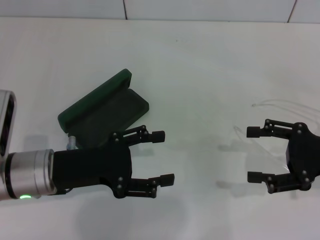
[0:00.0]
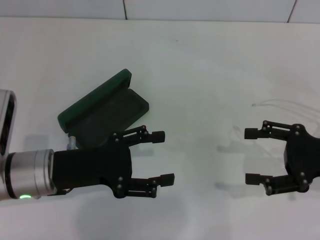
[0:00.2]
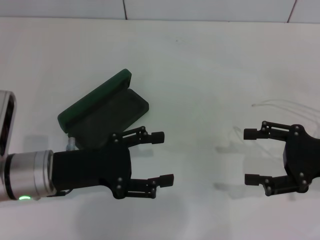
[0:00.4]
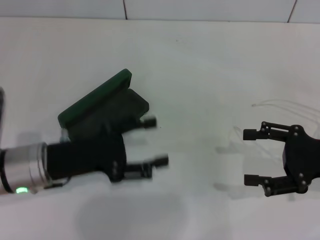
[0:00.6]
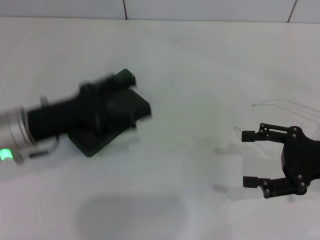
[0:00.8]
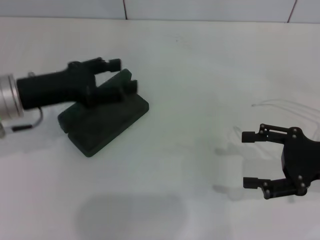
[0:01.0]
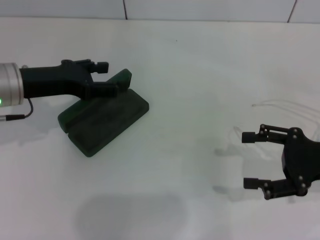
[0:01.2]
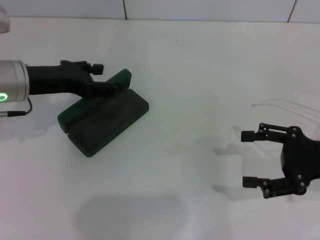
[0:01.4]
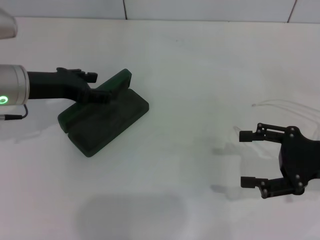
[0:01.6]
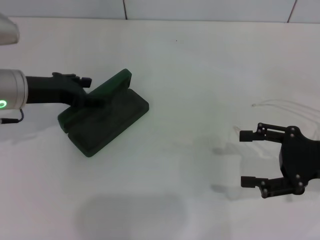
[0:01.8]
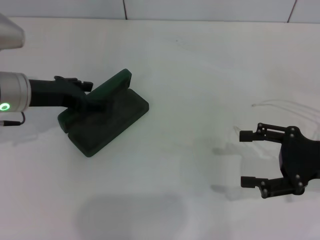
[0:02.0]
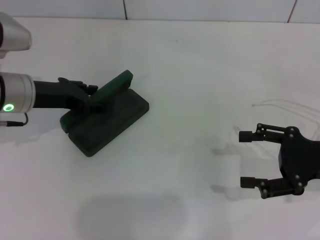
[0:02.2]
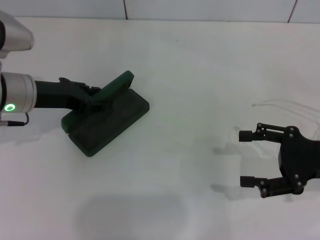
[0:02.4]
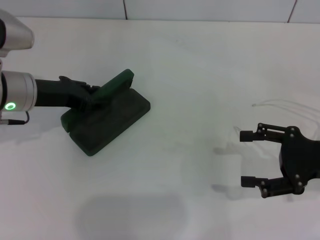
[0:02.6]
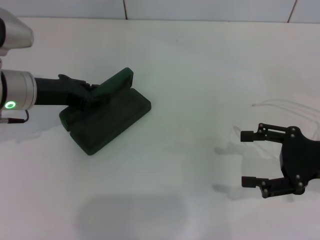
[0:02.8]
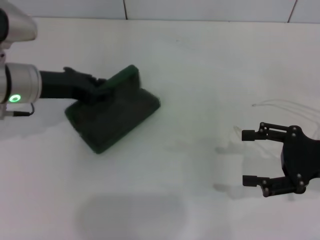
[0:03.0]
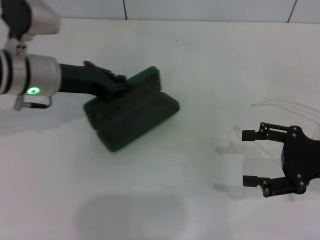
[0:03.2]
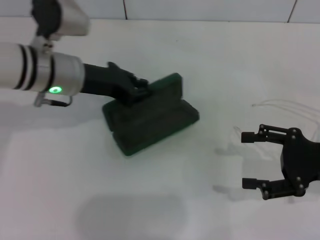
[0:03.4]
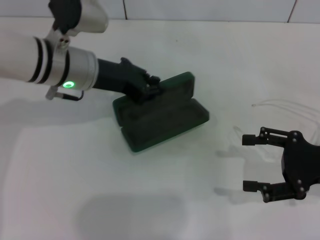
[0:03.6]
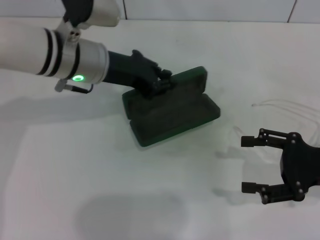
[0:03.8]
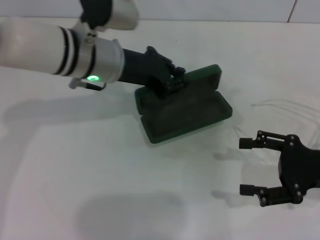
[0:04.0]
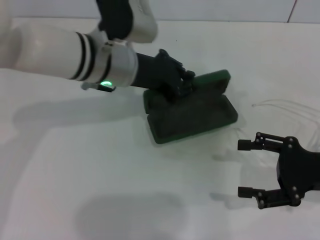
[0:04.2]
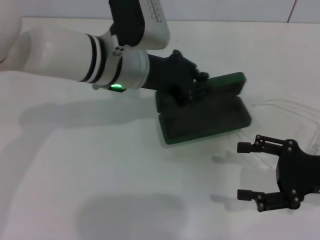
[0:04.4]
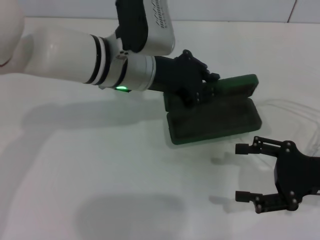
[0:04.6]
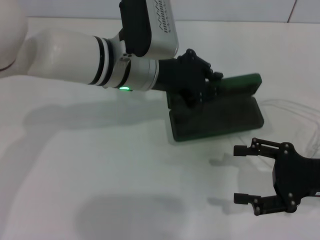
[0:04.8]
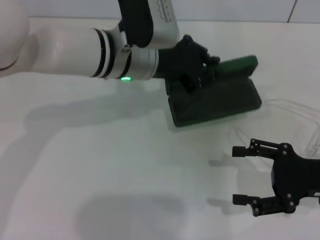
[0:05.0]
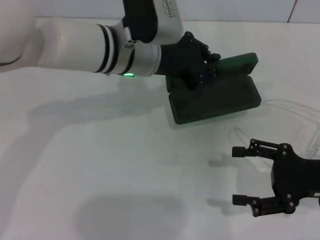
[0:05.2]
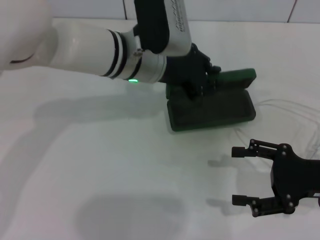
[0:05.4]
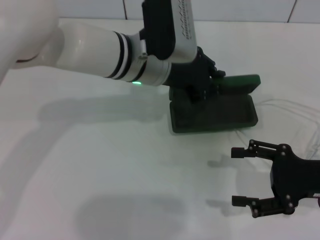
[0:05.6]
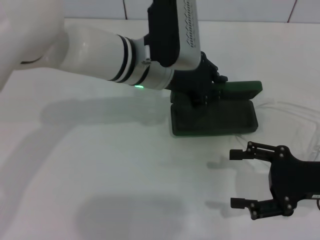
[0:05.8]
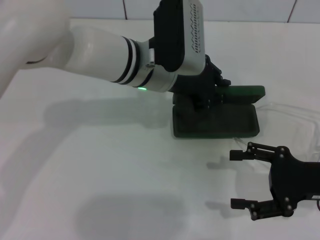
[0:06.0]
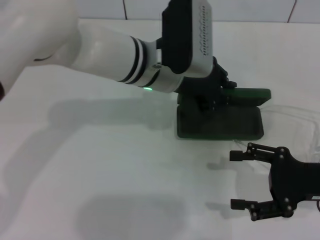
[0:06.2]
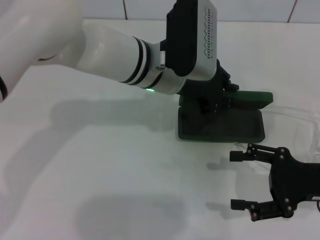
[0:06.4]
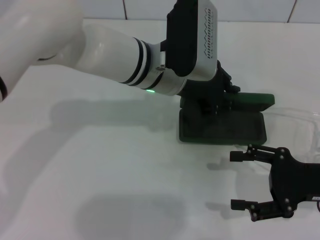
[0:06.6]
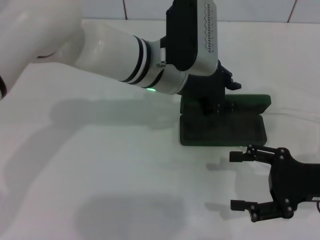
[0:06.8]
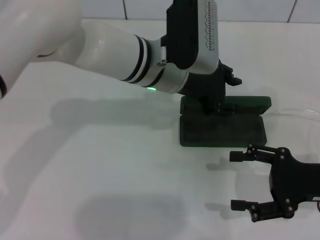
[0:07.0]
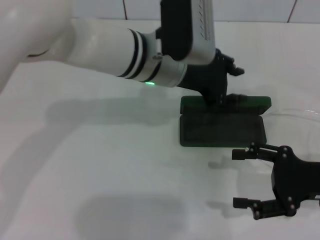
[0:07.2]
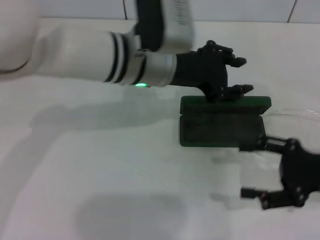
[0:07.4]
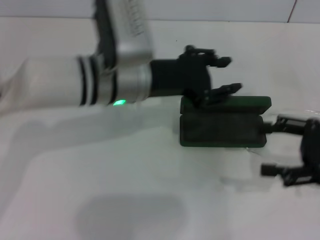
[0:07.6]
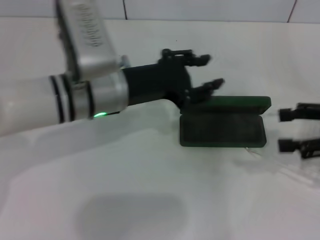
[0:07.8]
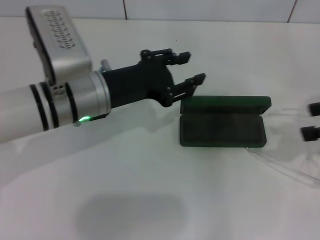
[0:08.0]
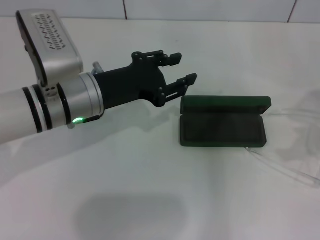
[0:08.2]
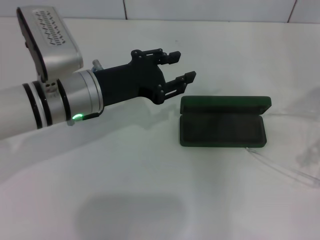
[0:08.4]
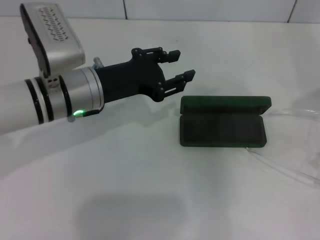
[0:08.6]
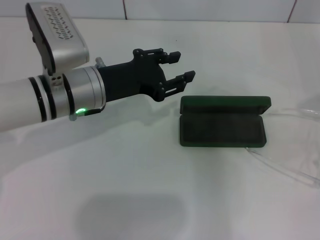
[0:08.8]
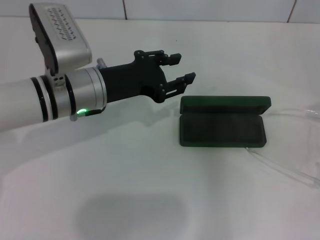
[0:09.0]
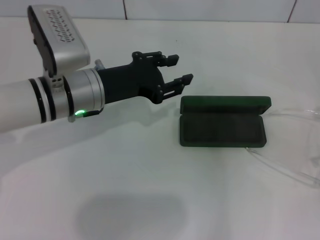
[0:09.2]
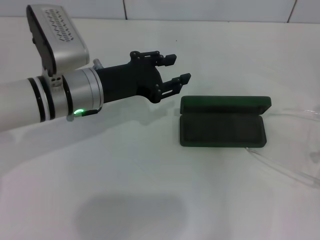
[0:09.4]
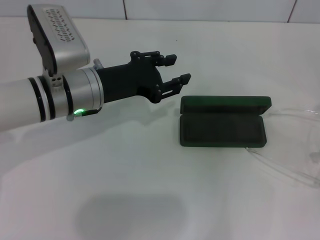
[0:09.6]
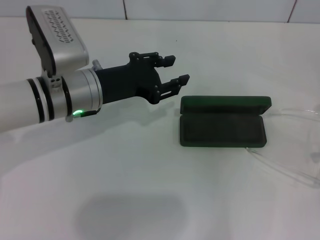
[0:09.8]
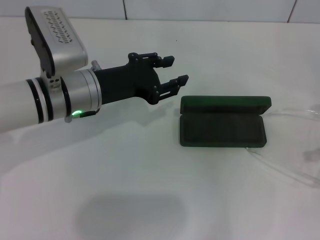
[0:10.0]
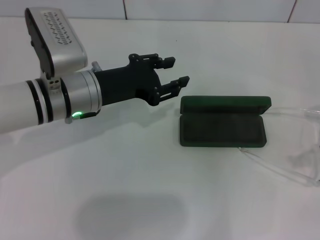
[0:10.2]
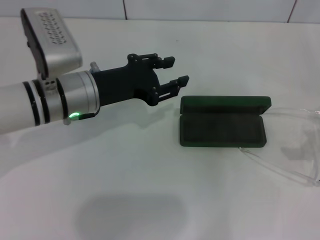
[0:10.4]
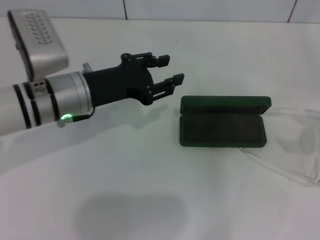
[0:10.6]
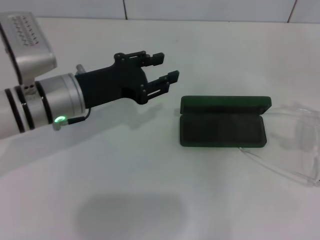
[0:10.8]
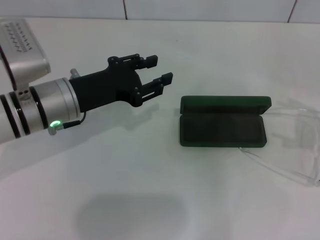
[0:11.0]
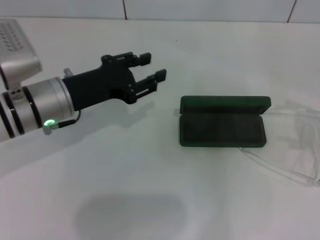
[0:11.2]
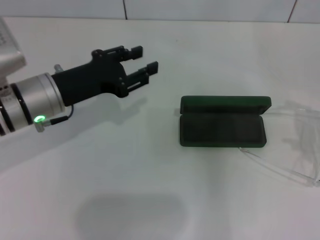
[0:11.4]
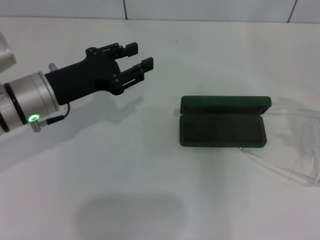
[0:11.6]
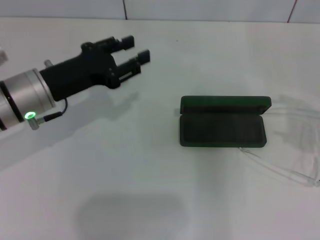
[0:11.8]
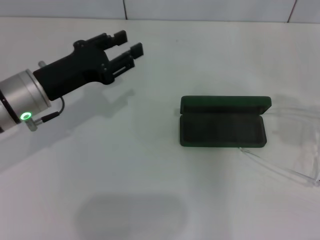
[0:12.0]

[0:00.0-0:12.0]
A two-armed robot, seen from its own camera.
Step, 0:00.0 to 0:02.6: Grab the glasses case with your left hand.
Step, 0:02.8 to 0:06.8: Place the glasses case in the center of the table with your left hand.
0:00.0 to 0:01.6: The left gripper travels forward and upward by approximately 10 cm.
0:01.6 to 0:03.0: The left gripper closes its fingers.
0:03.0 to 0:04.4: The left gripper moves to the right, approximately 15 cm.
0:06.0 to 0:07.6: The right gripper ends up about 5 cm from where it was, while the left gripper shifts by some 5 cm.
0:07.6 to 0:09.0: The right gripper shifts approximately 10 cm upward. Meanwhile the left gripper goes approximately 5 cm to the left.
0:10.4 to 0:12.0: The right gripper ends up roughly 10 cm from where it was, while the left gripper travels to the left by about 5 cm.

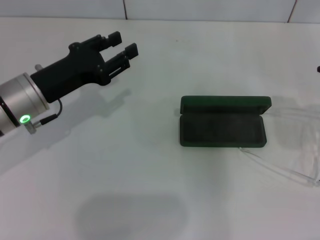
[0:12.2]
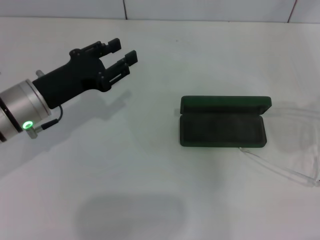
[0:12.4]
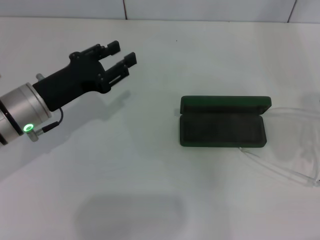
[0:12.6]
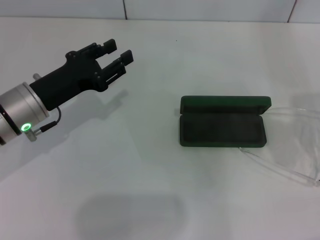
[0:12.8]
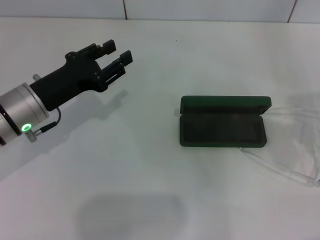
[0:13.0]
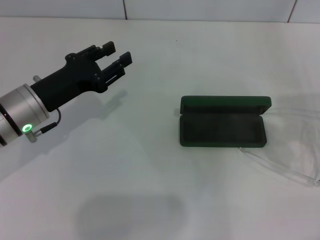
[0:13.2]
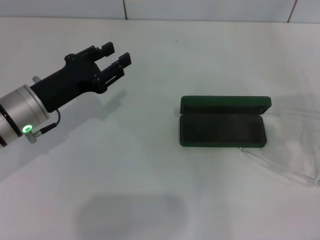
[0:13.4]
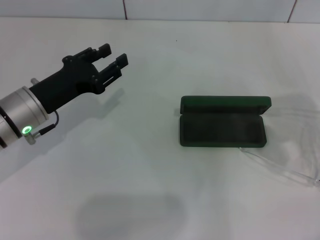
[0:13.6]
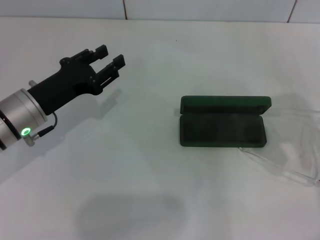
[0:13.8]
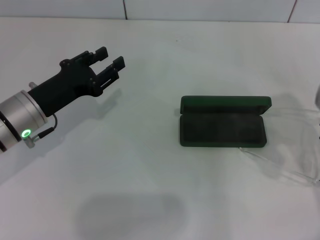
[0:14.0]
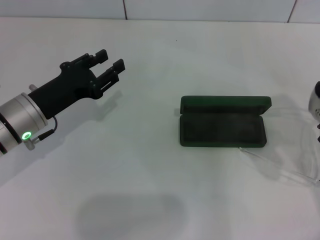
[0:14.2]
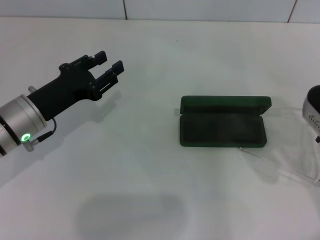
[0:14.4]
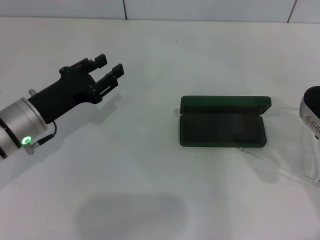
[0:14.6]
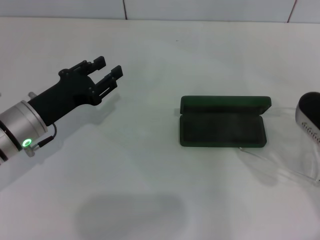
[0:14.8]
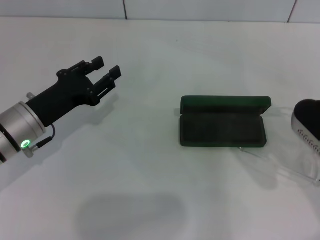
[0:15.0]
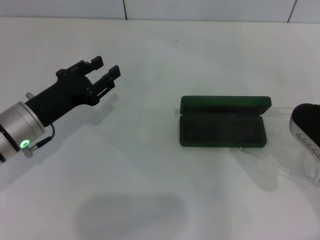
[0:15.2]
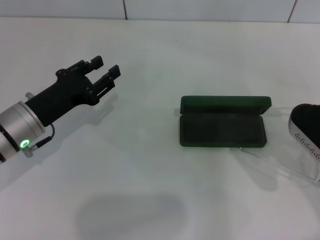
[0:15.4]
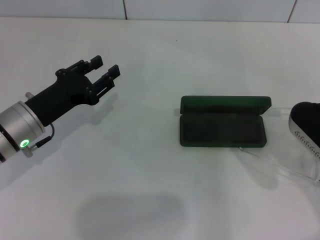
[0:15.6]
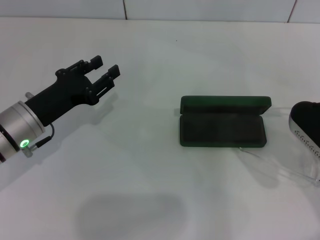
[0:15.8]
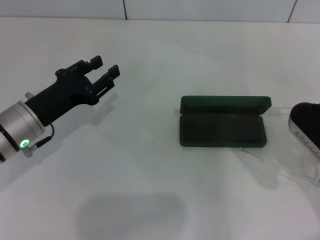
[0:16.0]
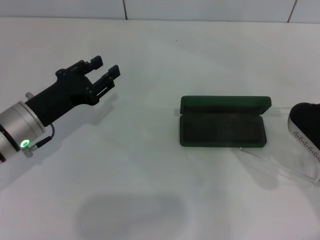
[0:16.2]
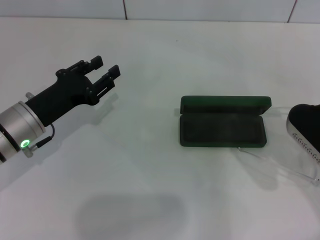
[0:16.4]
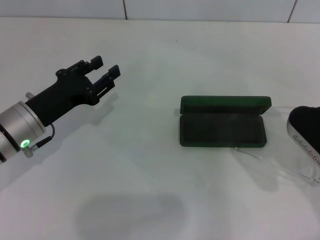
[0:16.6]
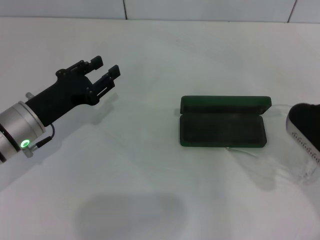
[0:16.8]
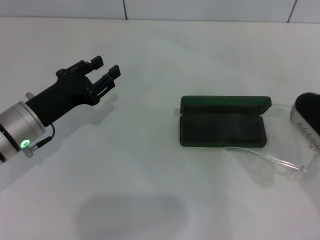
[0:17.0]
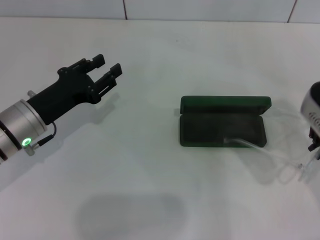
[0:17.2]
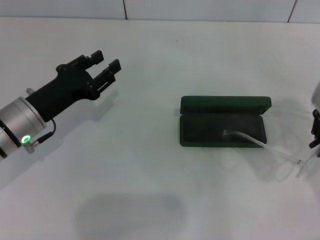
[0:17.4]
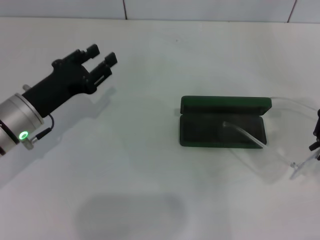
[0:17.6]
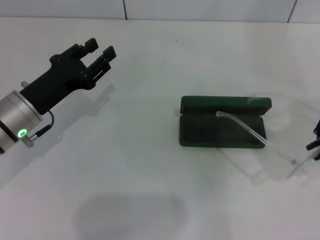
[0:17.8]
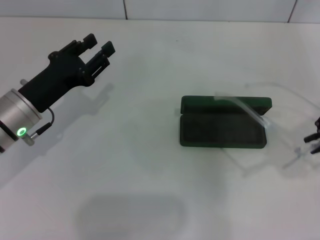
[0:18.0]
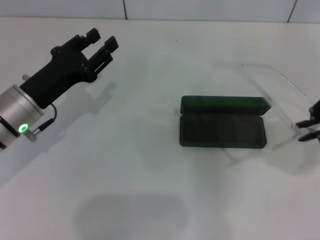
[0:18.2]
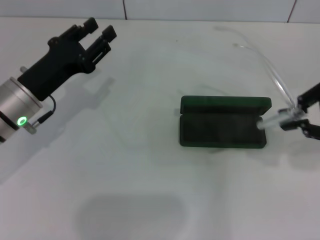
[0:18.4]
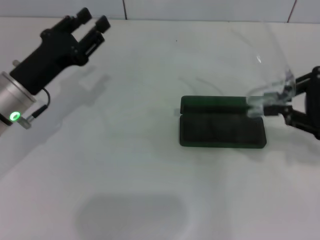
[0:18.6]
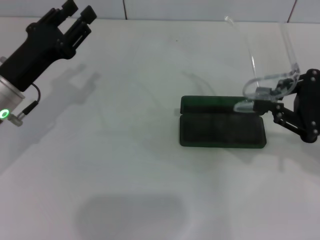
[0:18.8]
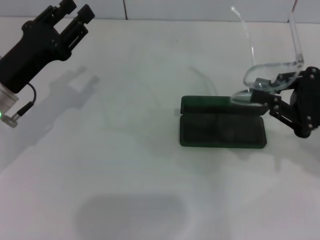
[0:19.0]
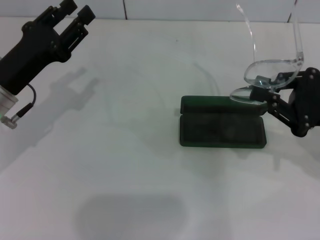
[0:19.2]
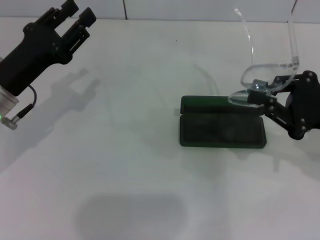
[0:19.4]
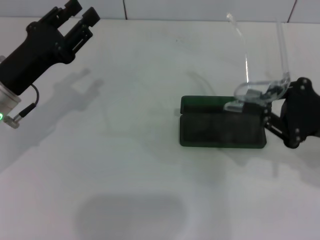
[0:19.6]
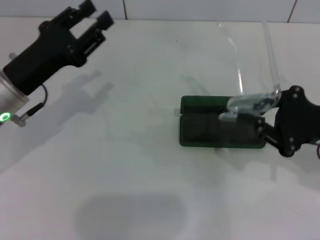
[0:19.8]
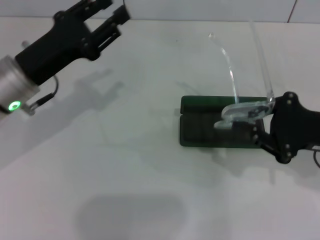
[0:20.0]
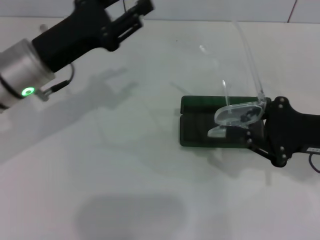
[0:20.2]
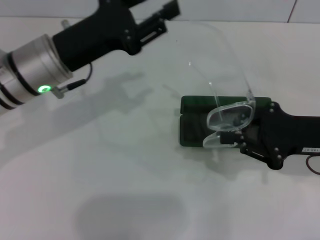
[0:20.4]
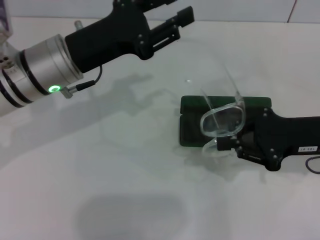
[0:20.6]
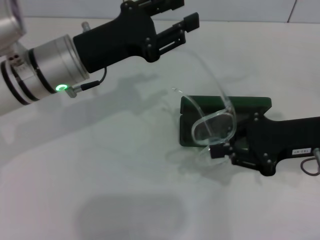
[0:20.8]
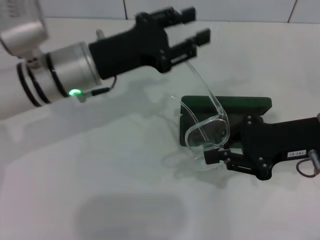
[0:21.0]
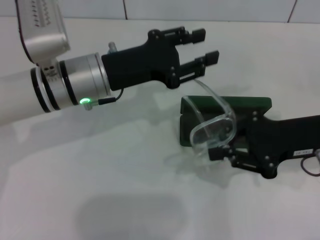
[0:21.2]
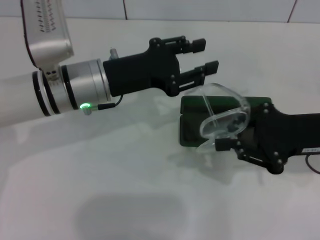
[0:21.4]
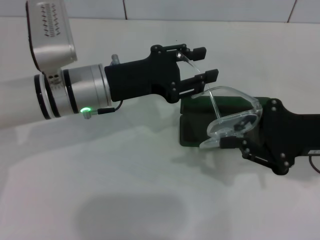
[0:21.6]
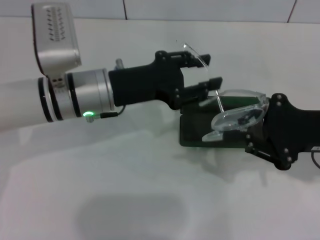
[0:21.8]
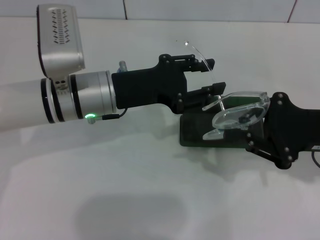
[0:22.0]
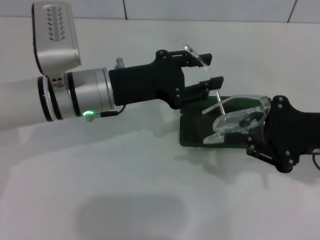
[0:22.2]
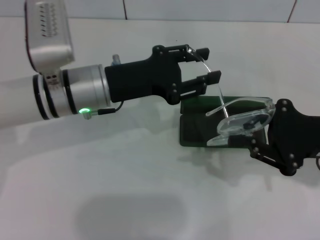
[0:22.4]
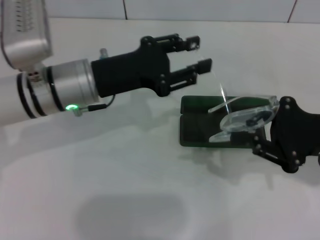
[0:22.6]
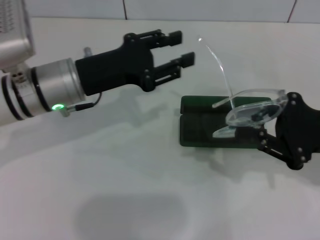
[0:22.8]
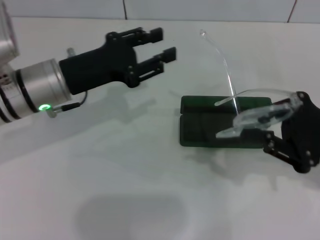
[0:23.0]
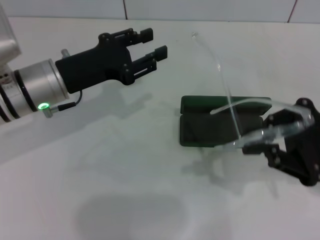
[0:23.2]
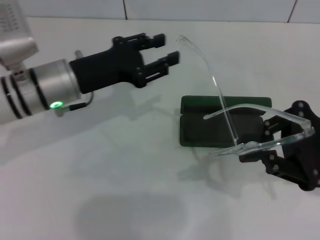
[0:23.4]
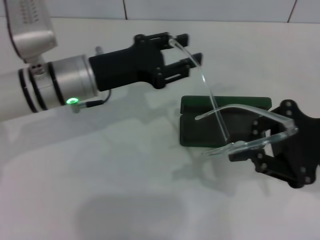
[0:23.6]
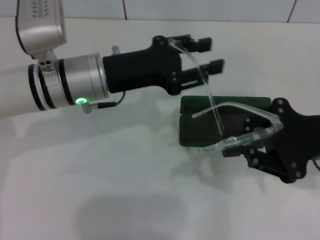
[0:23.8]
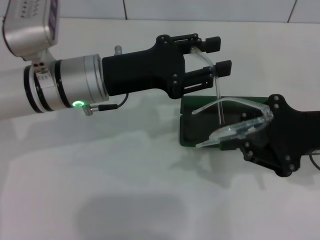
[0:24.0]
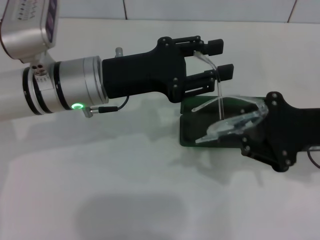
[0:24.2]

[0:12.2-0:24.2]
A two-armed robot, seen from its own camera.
Step, 0:12.2 to 0:16.6: Grab the eyeglass frame with your right hand.
0:12.2 to 0:13.8: The right gripper is displaced to the left and downward by about 10 cm.
0:13.8 to 0:15.2: The right gripper changes place by roughly 5 cm.
0:15.2 to 0:16.6: The right gripper closes.
0:16.6 to 0:18.2: The right gripper heads to the right and upward, covering some 10 cm.
0:18.2 to 0:19.8: The right gripper goes roughly 10 cm downward.
0:19.8 to 0:21.2: The left gripper goes approximately 10 cm to the right.
0:21.2 to 0:22.6: The grippers stay close to where they were, moving slightly.
0:22.6 to 0:24.2: There are only small adjustments of the grippers.
